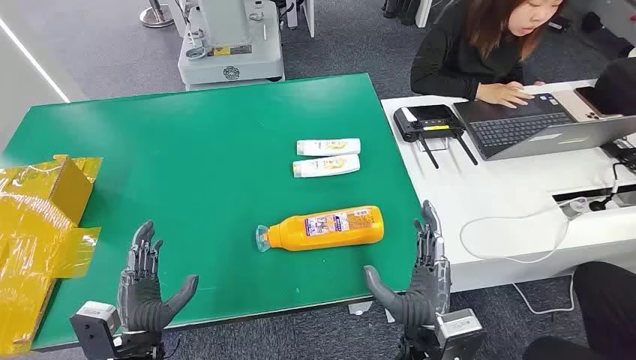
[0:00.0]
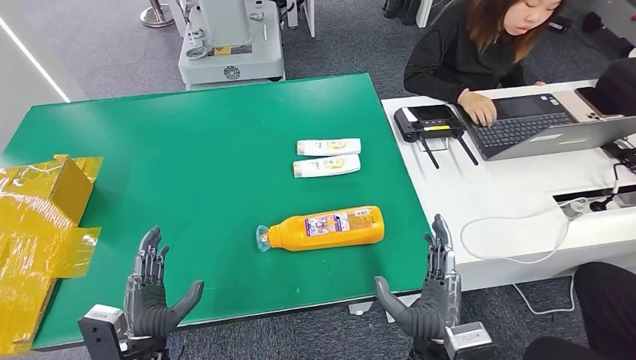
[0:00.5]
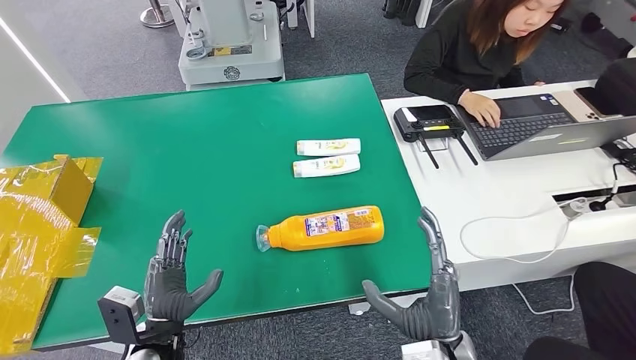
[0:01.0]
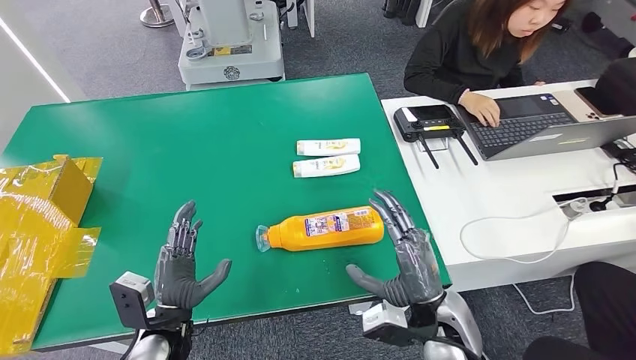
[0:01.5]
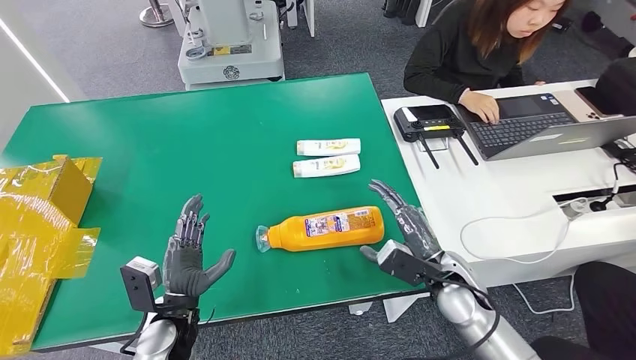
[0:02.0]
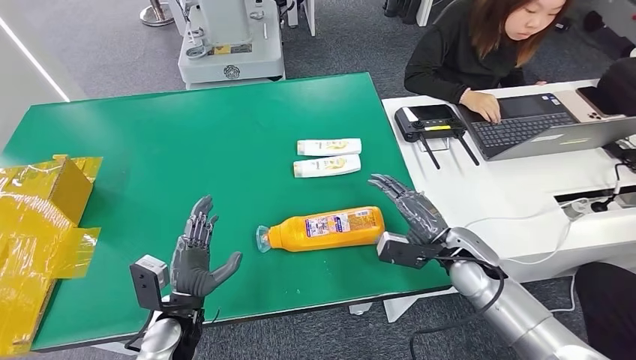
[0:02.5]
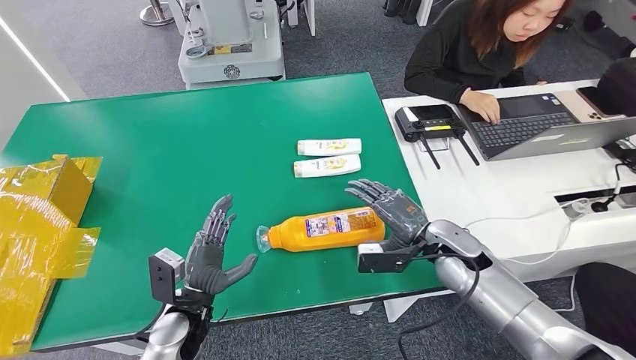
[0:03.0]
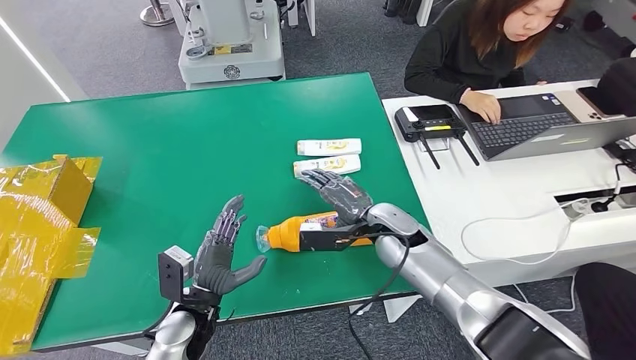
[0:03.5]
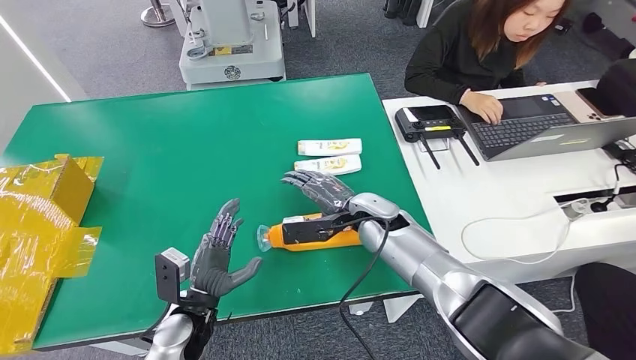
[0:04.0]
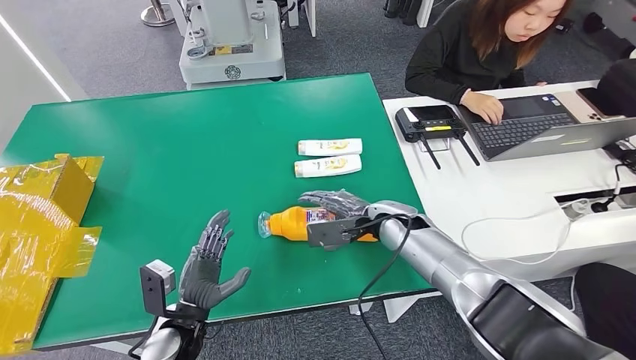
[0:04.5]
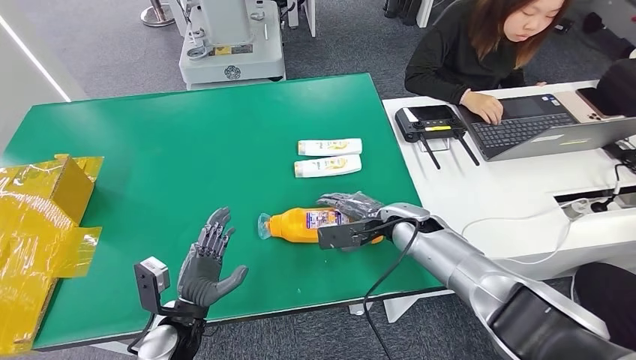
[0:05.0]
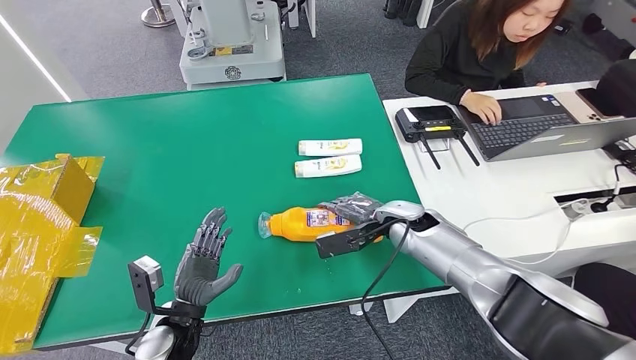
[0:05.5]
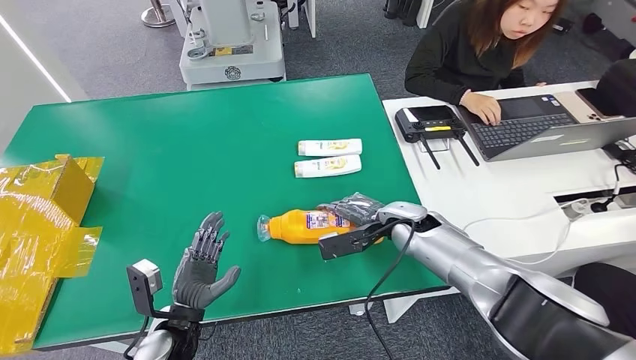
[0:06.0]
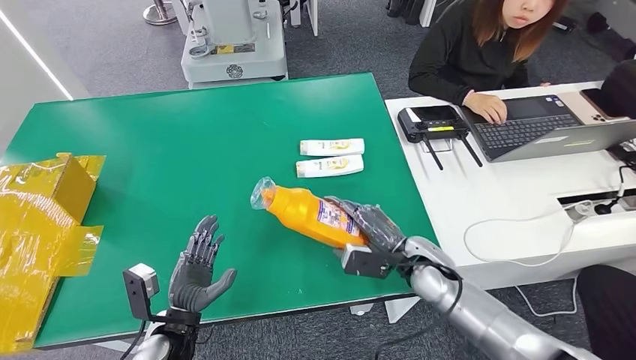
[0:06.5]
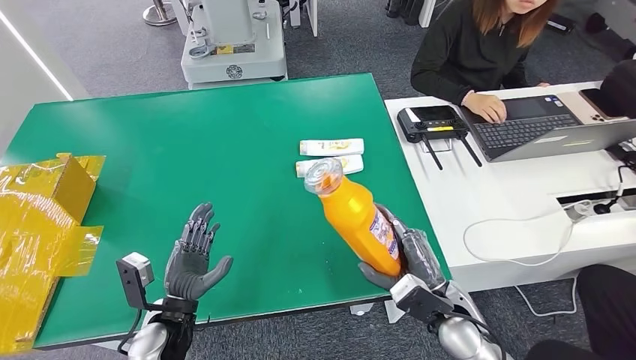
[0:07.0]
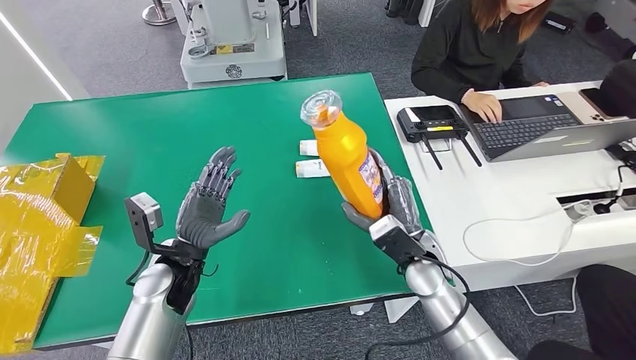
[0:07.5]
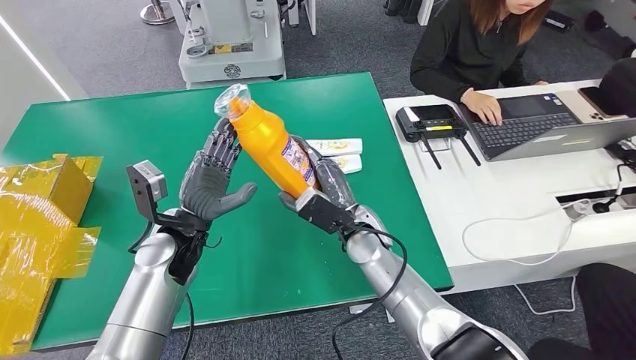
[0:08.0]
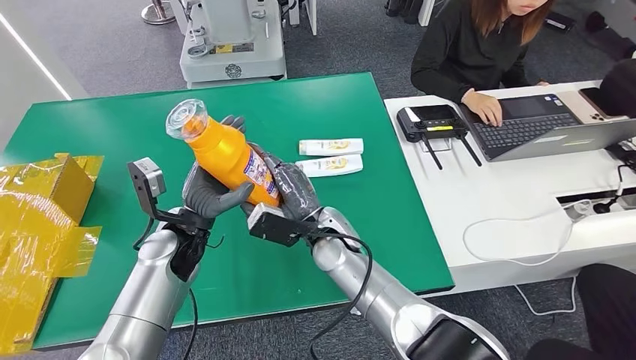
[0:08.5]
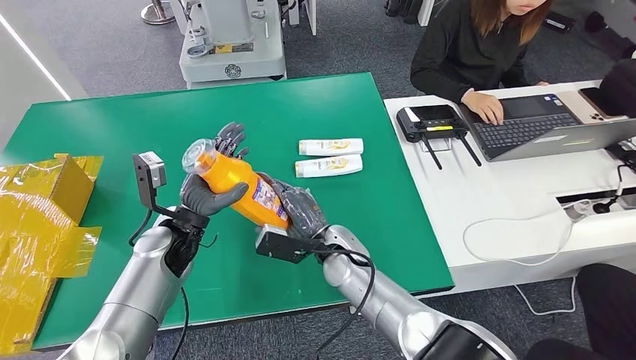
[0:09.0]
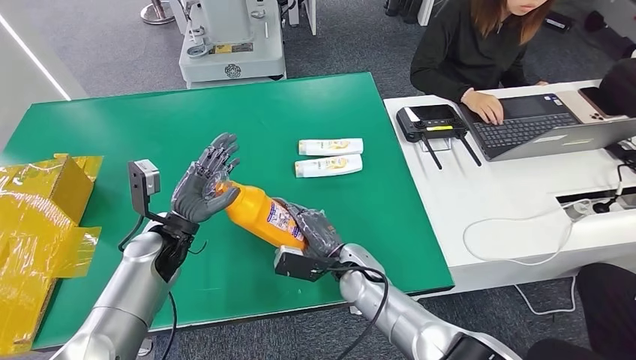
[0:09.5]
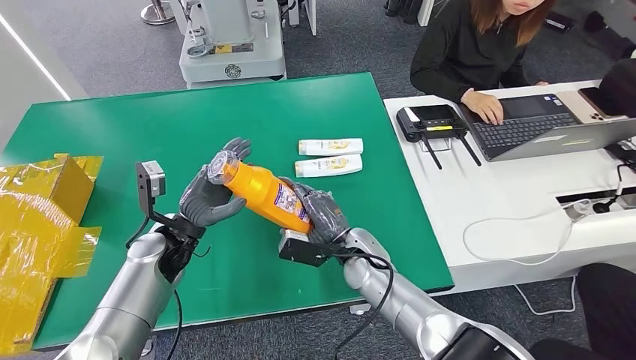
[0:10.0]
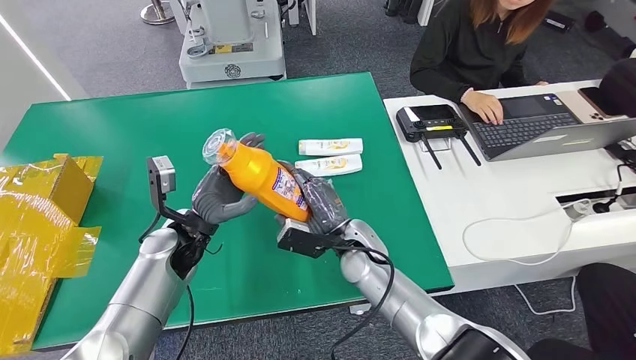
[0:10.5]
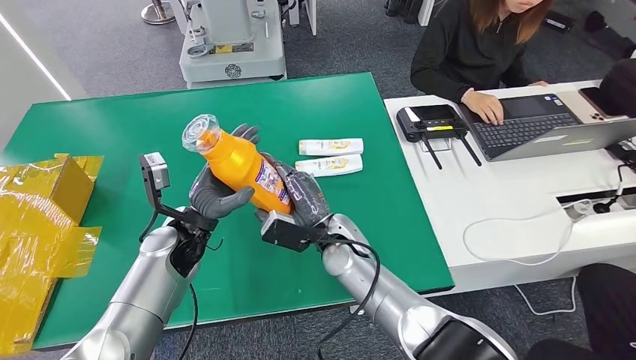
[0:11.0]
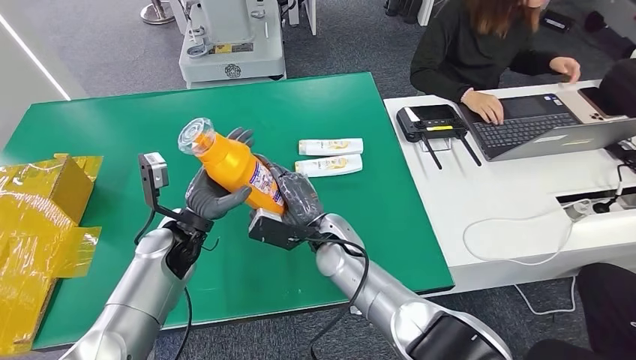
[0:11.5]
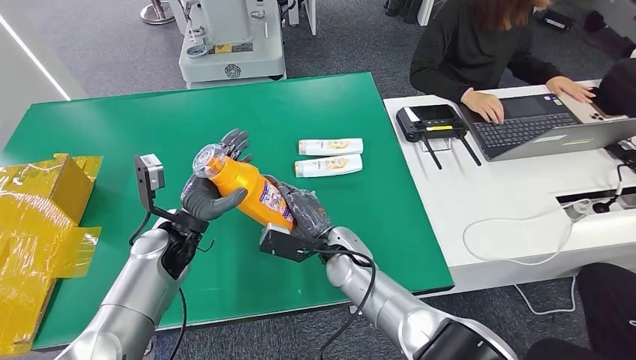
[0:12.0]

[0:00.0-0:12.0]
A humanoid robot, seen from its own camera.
Step, 0:00.0 to 0:06.5: Pick up the bottle from the table.
0:02.0 to 0:04.0: The right hand shifts about 15 cm forward and to the left.
0:04.0 to 0:06.0: The right hand goes some 10 cm to the right.
0:08.0 to 0:10.0: The left hand ends up approximately 5 cm from where it was.

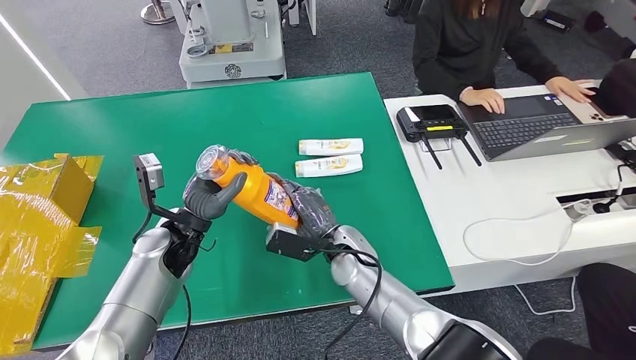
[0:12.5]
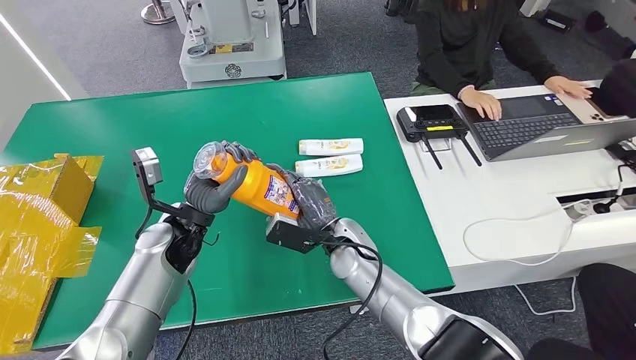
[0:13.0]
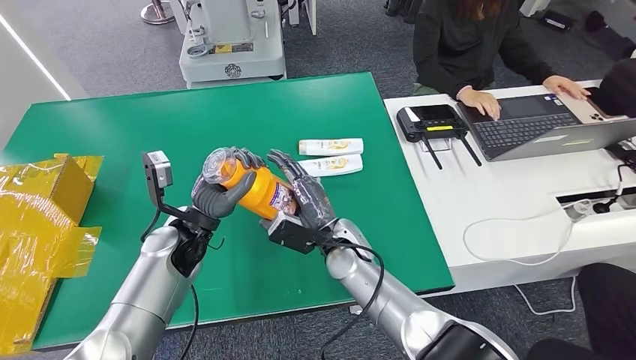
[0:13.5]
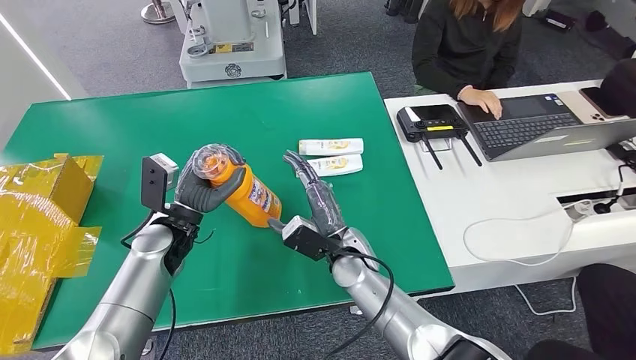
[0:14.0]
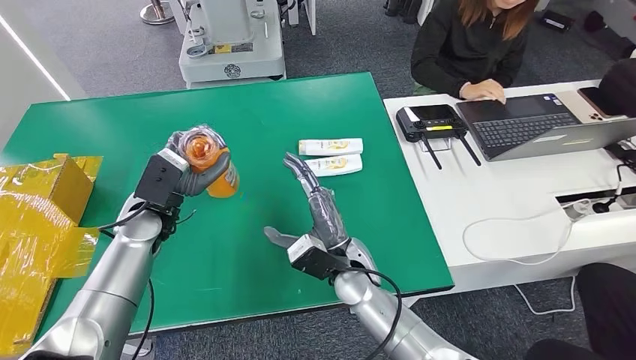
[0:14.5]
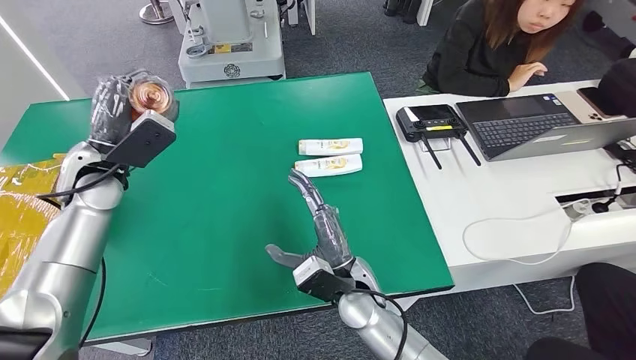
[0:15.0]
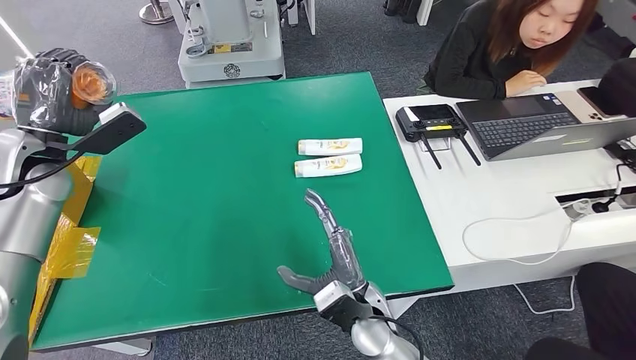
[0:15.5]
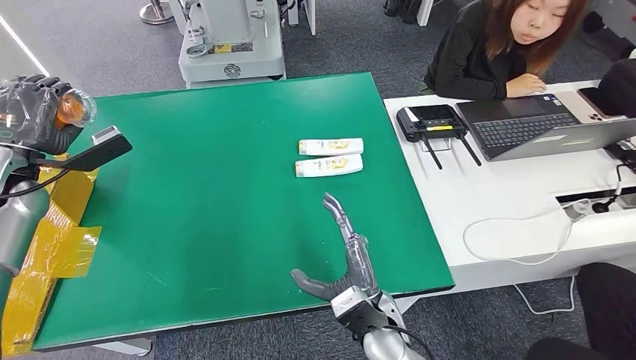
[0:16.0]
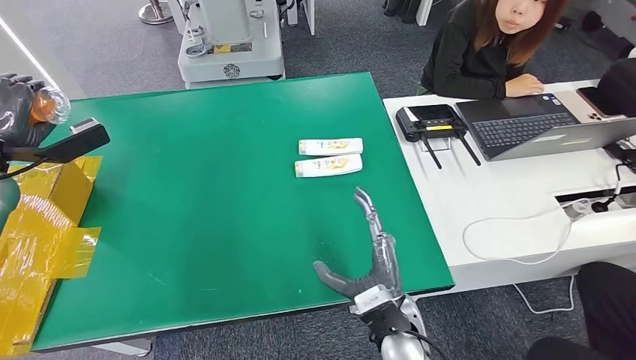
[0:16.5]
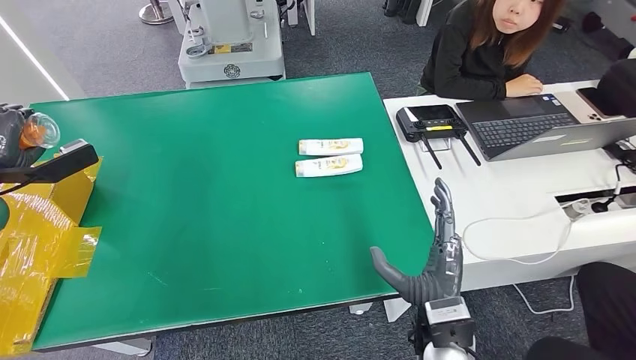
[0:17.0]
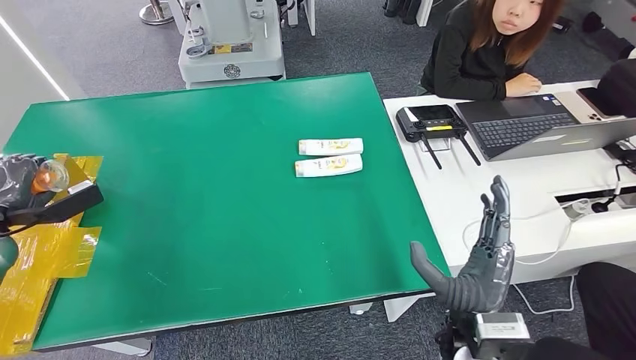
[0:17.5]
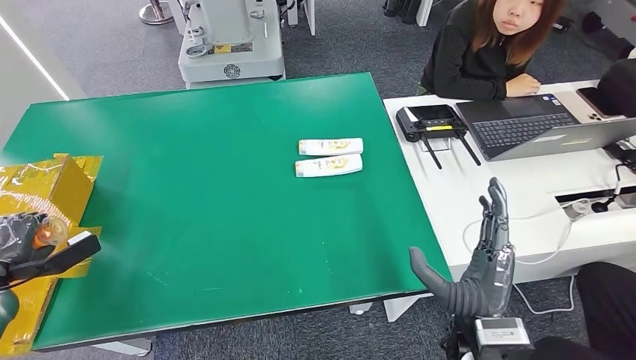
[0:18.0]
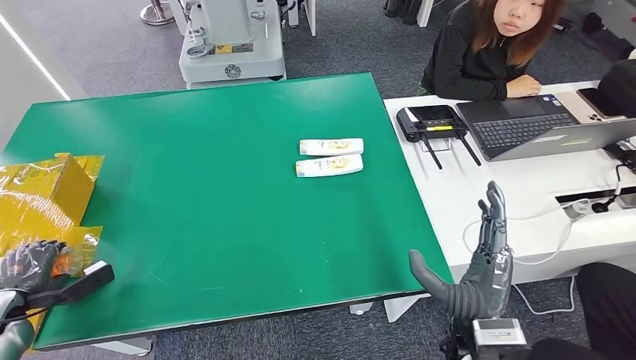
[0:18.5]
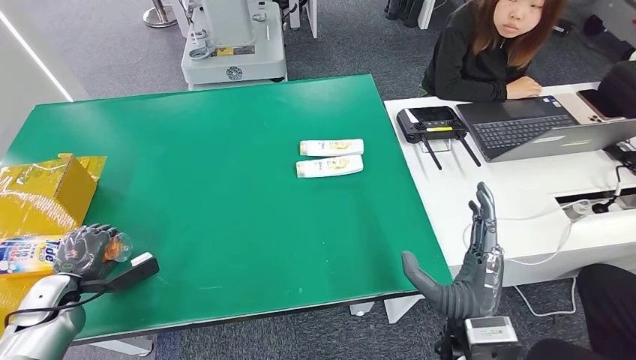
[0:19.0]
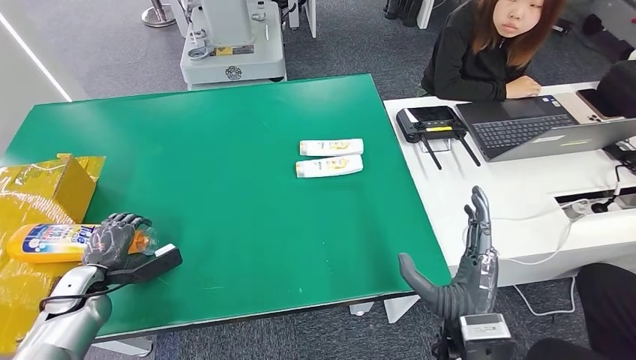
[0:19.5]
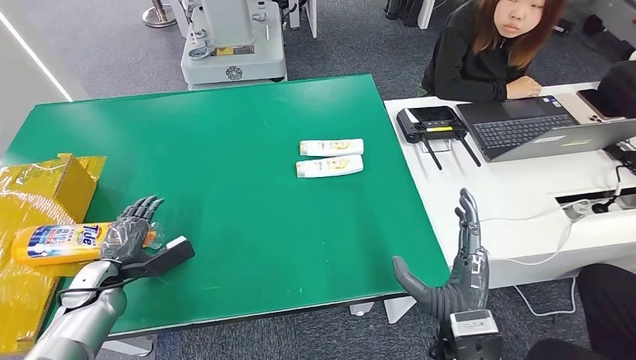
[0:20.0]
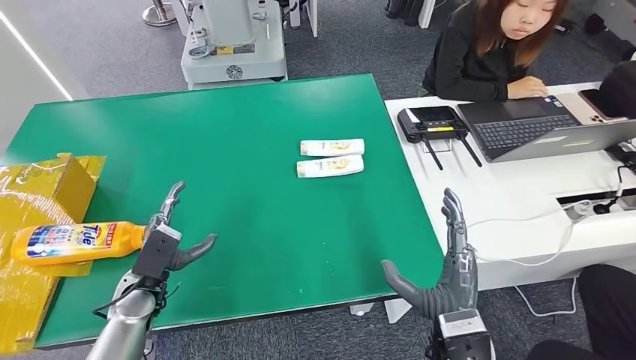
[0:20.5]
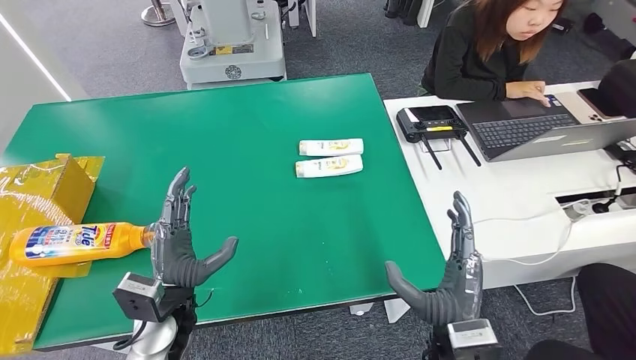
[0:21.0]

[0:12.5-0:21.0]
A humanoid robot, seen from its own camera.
Step, 0:12.5 to 0:21.0: Turn the bottle to the front side.
0:12.5 to 0:14.5: The left hand moves some 5 cm.
0:14.5 to 0:16.5: The left hand moves to the left and upward, some 25 cm, while the right hand shifts roughly 10 cm backward.
0:19.0 to 0:21.0: The left hand goes about 25 cm to the right.
